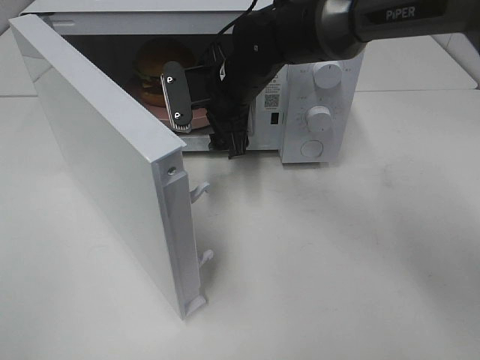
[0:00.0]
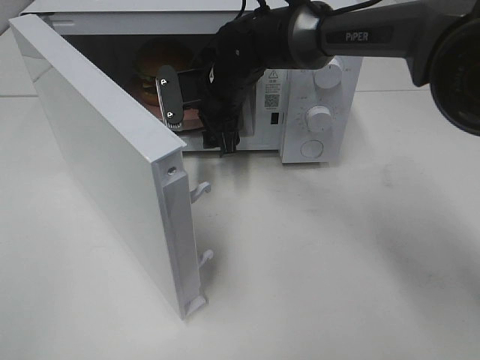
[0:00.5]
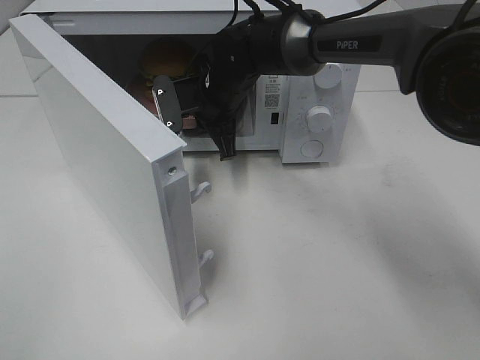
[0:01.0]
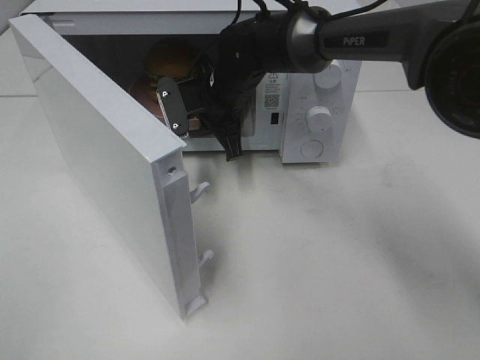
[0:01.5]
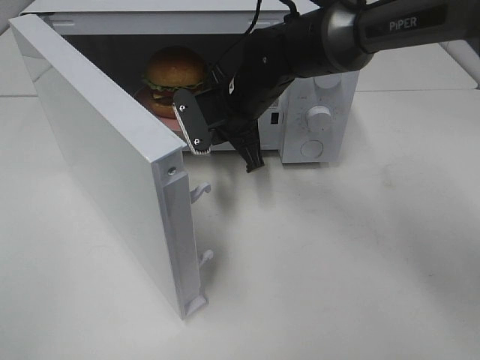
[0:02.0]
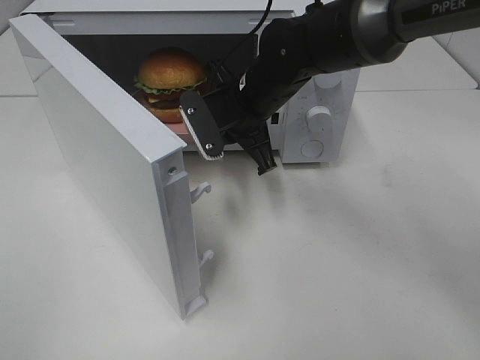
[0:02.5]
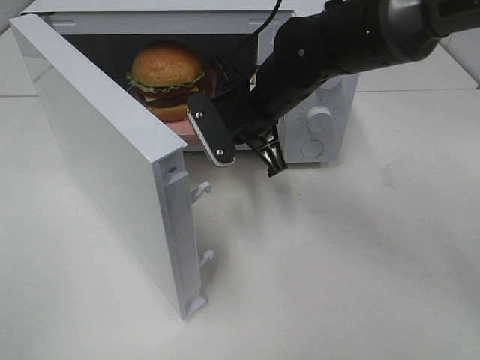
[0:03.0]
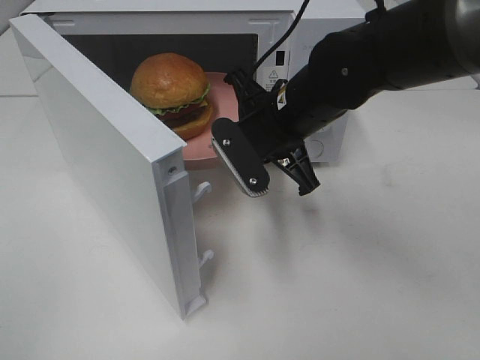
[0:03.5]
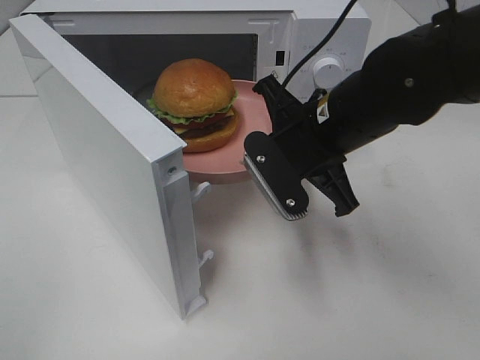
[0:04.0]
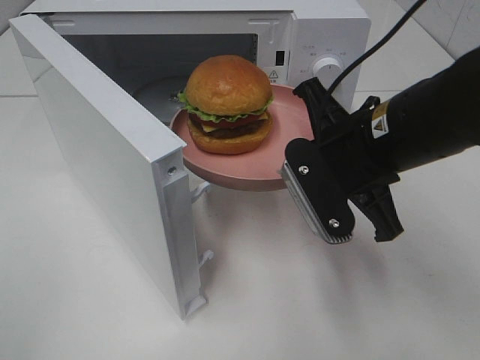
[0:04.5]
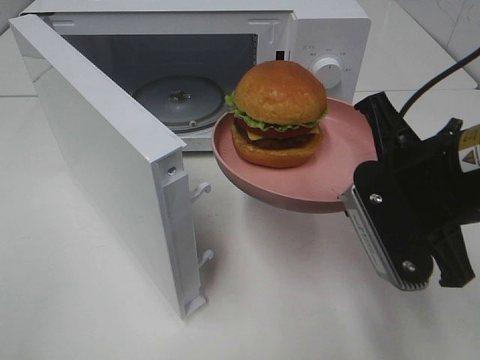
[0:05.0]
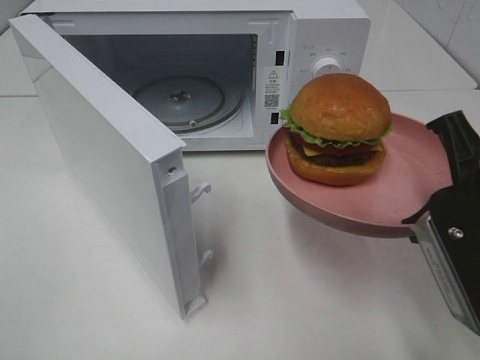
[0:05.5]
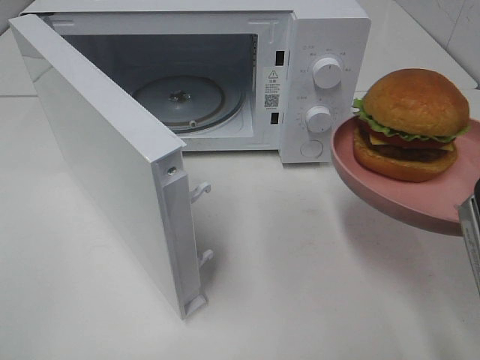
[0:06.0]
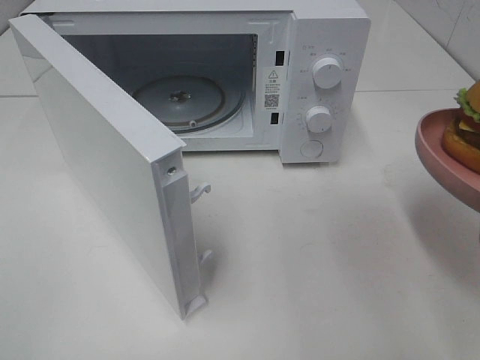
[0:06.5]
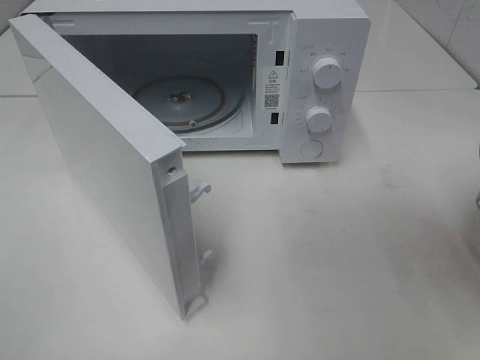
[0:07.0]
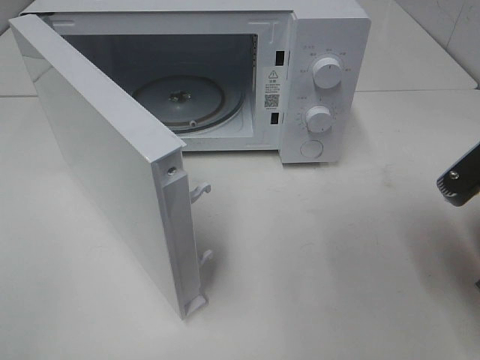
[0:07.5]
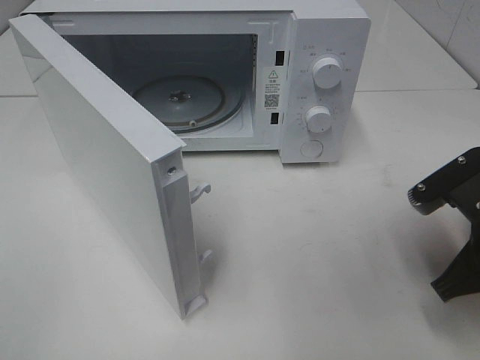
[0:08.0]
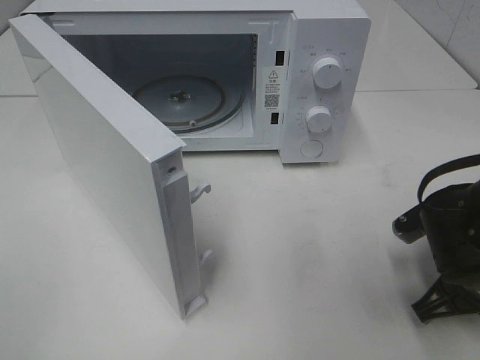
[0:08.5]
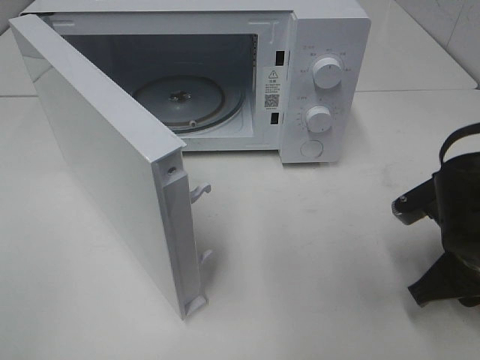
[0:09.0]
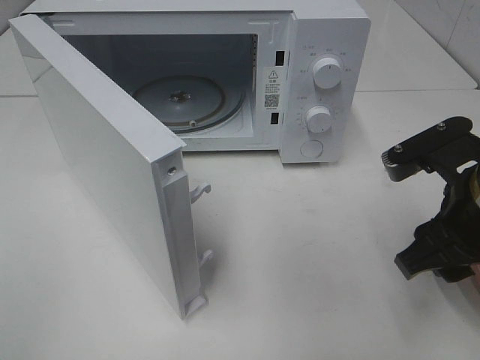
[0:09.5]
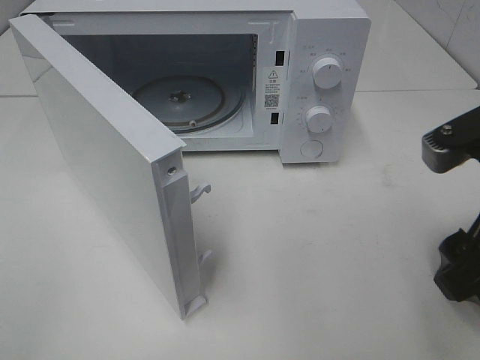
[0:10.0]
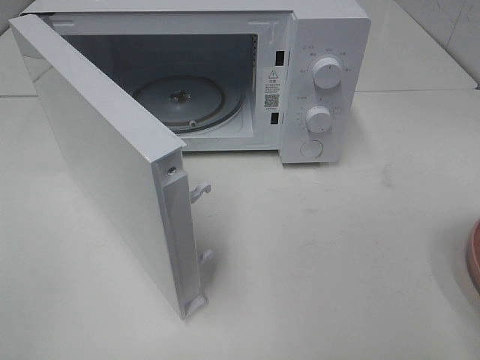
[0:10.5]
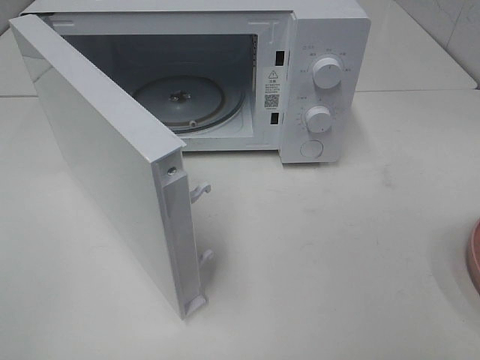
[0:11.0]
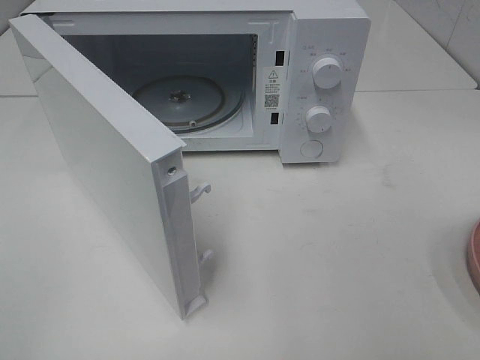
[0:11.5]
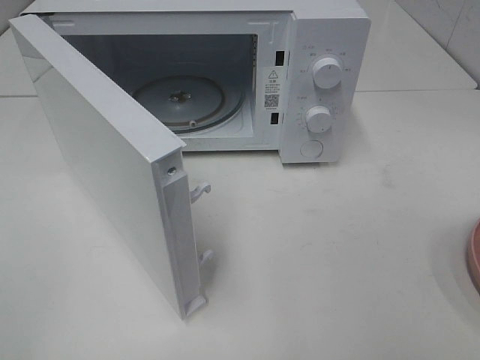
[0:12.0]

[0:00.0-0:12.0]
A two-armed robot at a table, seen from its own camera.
Task of the whole recording: Heat the burger.
Step, 0:01.5 to 0:09.0: Right hand: place the plate on the table.
0:00.0 to 0:02.0: The right gripper closes up.
0:02.0 to 0:04.0: The right gripper goes roughly 15 cm backward and to the right.
0:04.0 to 0:06.0: The right gripper moves backward and to the right, about 20 cm.
0:06.0 to 0:08.0: The right gripper is displaced downward and forward by approximately 10 cm.
0:08.0 to 0:10.0: The right gripper travels upward by about 10 cm, and opens up.
0:10.0 to 0:12.0: The right gripper shifts some 15 cm backward and to the right.

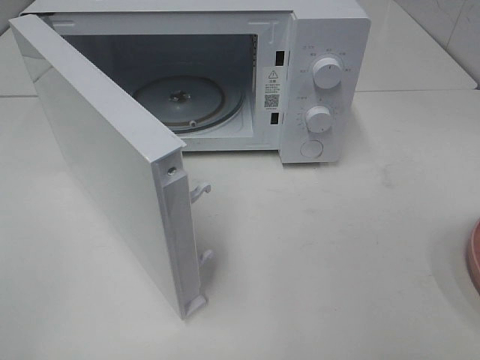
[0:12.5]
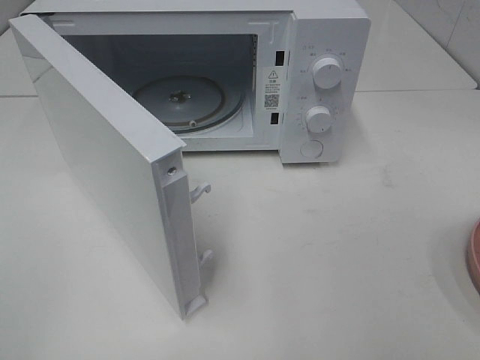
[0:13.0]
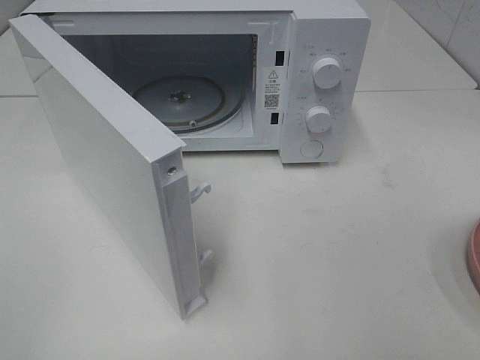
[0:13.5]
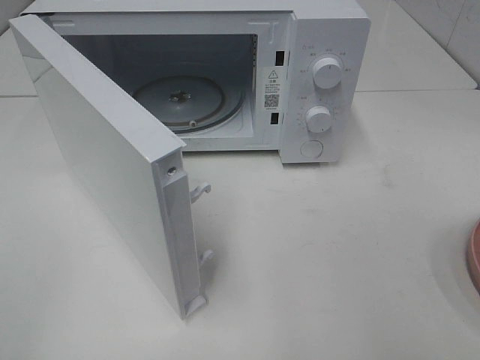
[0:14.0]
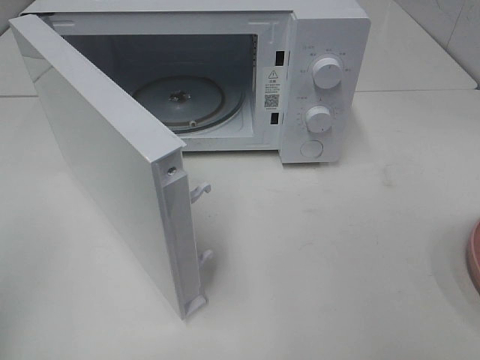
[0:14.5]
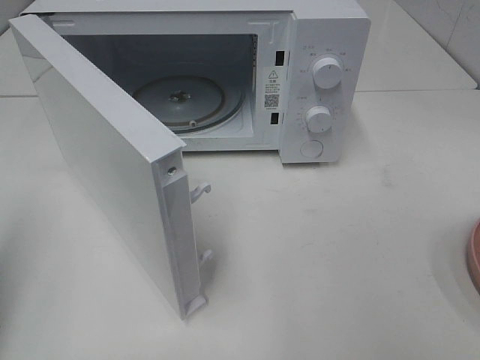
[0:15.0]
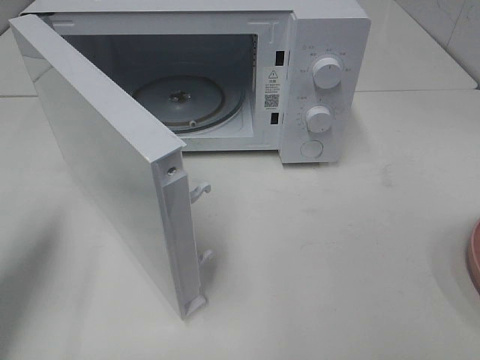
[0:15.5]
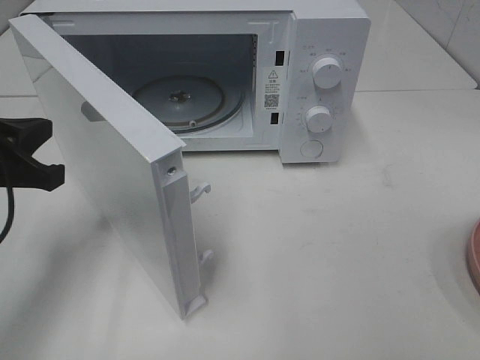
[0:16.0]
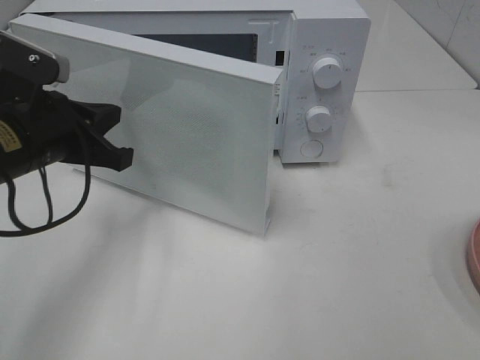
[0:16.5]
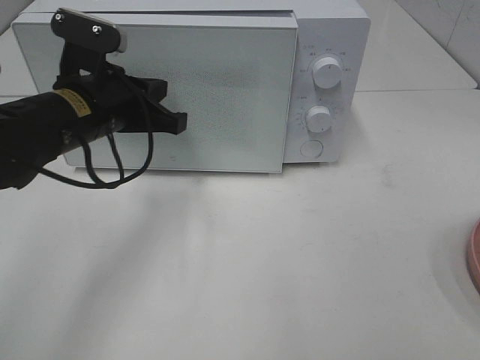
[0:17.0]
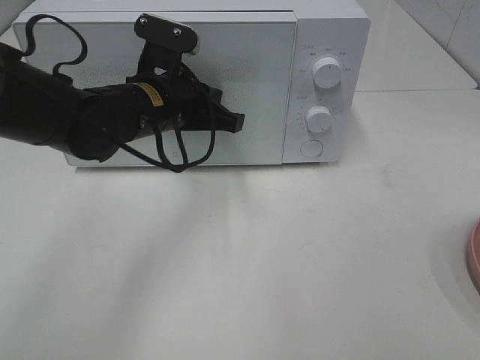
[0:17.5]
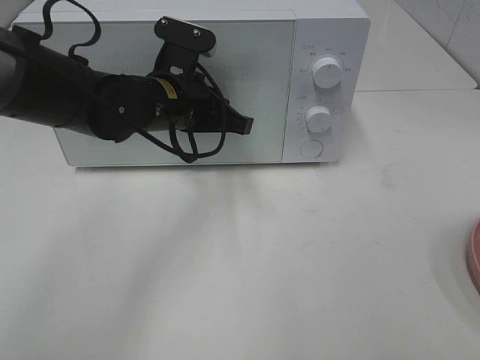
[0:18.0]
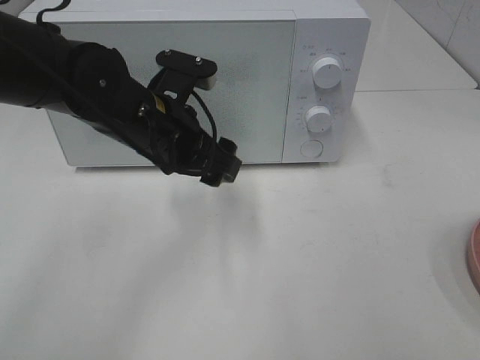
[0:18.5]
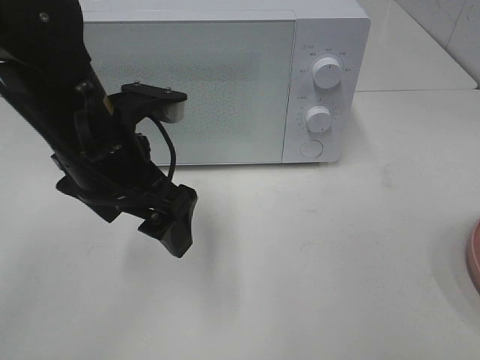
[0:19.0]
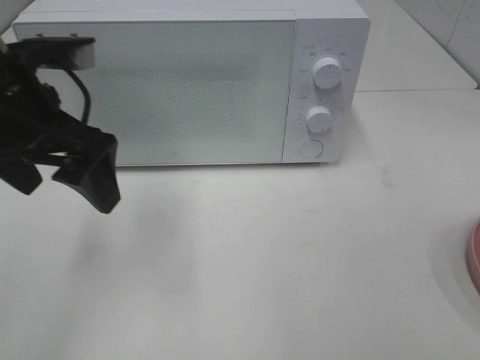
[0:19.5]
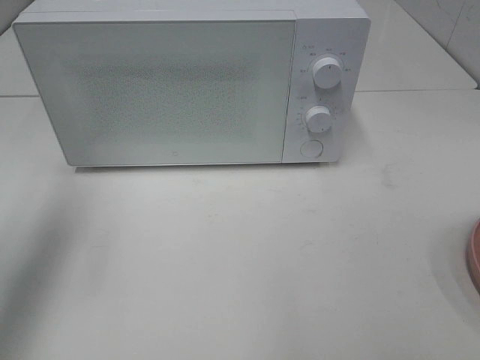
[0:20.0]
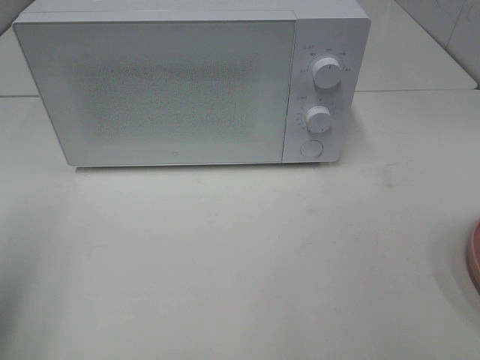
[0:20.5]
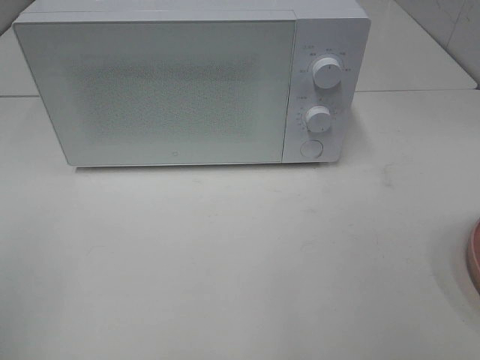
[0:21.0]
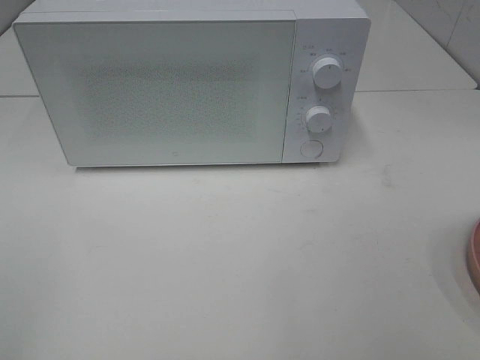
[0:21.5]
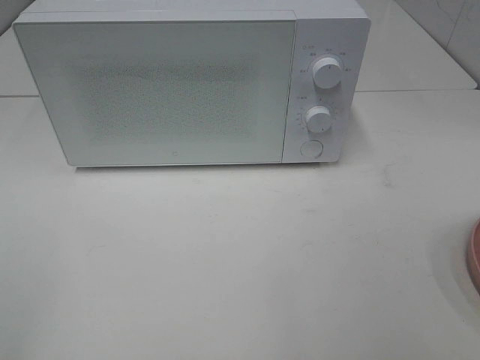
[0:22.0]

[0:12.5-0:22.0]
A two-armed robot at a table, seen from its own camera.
Task of the whole recording: Heat the burger.
Step, 0:12.5 to 0:18.5: Left hand: close the microwave door.
0:14.5 to 0:16.5: The left gripper shifts approximately 30 cm forward, to the right and downward.
0:16.5 to 0:18.0: The left gripper is displaced to the right and forward by about 15 cm.
0:18.0 to 0:20.0: The left gripper goes about 30 cm to the left, upward and backward, and opens its fingers.
0:20.0 to 0:22.0: The left gripper shifts approximately 25 cm backward.

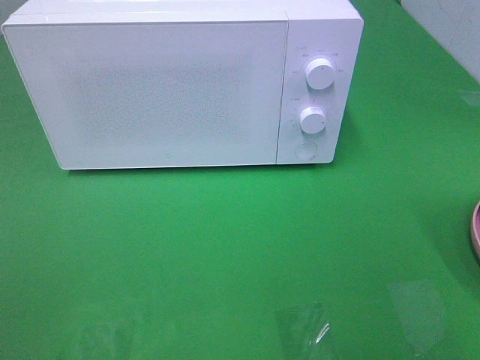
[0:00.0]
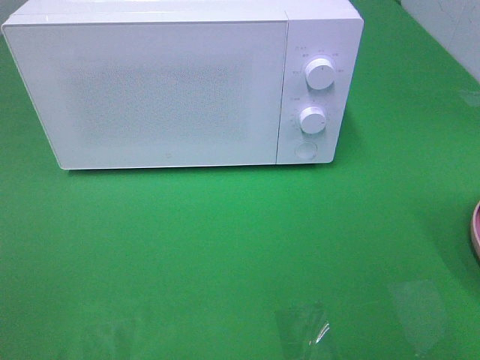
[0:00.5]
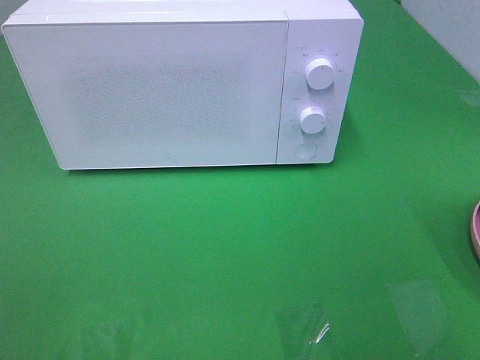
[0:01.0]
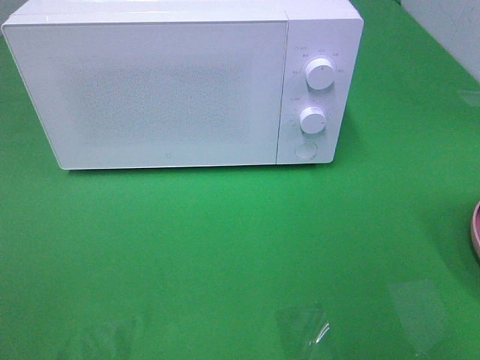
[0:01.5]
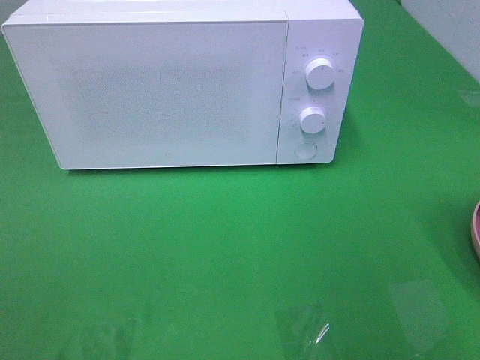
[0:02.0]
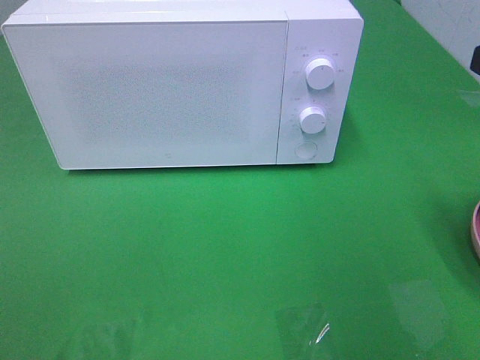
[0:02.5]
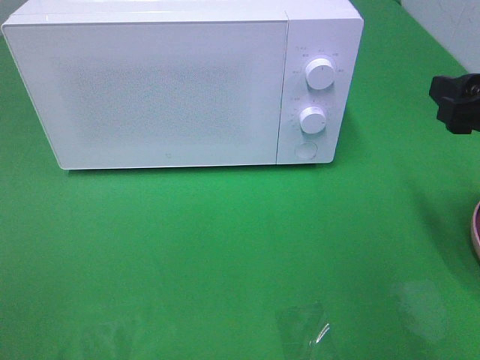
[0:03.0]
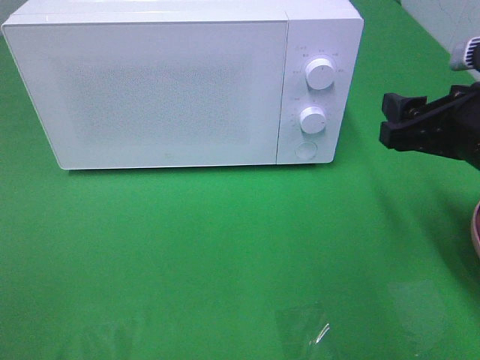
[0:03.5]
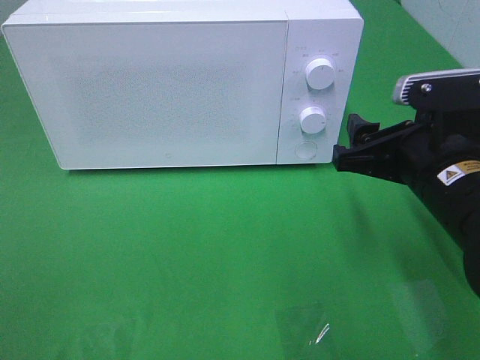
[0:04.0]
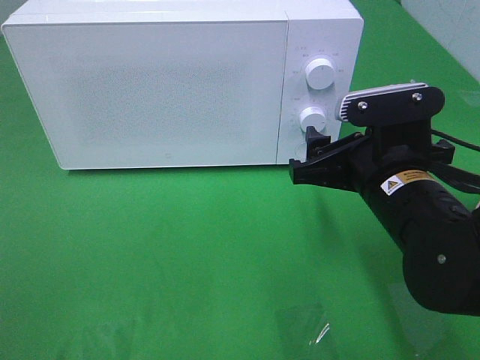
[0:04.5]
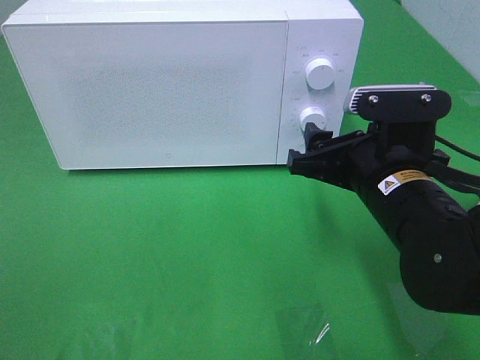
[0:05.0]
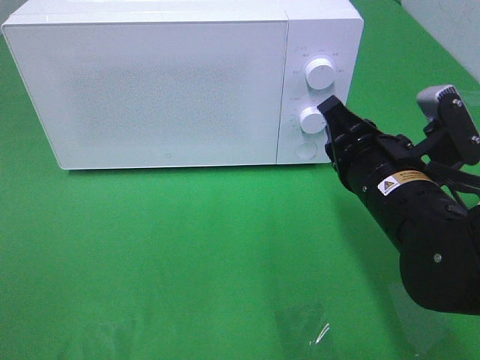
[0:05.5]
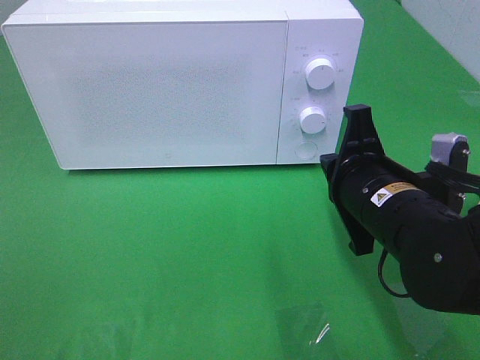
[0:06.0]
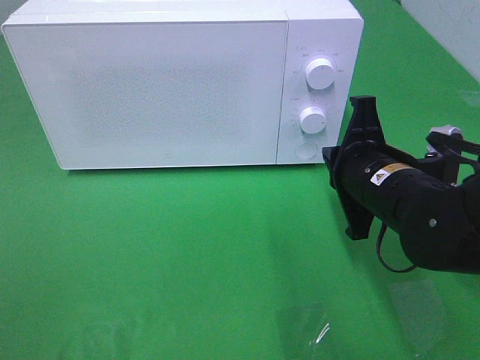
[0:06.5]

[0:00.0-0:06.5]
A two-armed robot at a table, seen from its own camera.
Task of the whole recording: Heat the burger.
0:02.0 to 0:04.5: The right gripper is displaced downward, to the left and forward by approximately 20 cm.
0:04.5 to 0:06.5: The right gripper closes its fingers.
